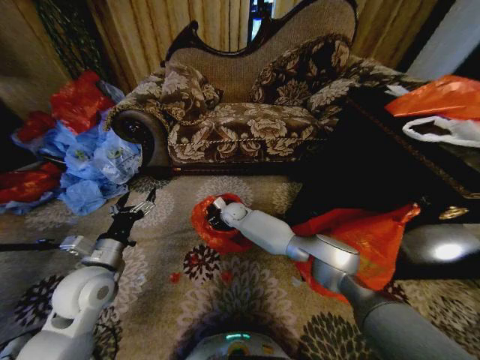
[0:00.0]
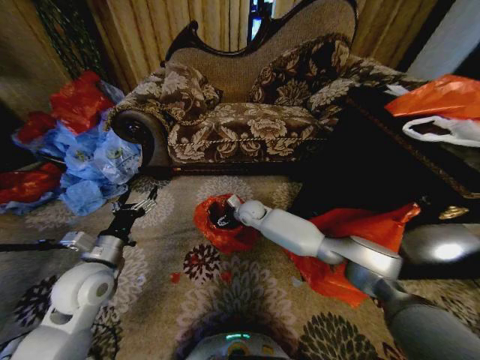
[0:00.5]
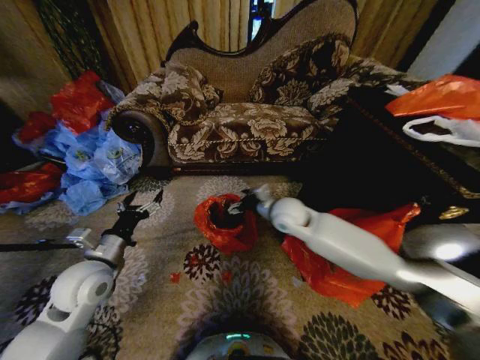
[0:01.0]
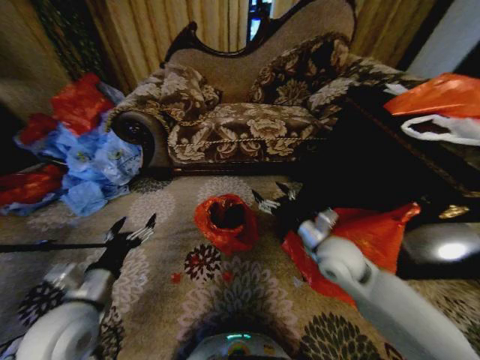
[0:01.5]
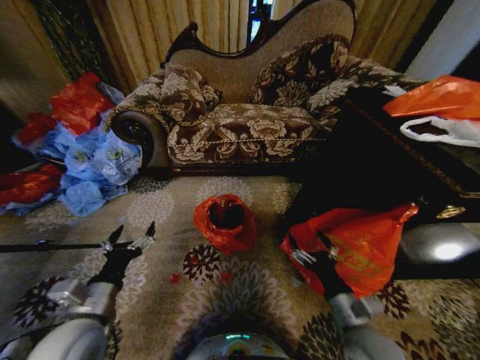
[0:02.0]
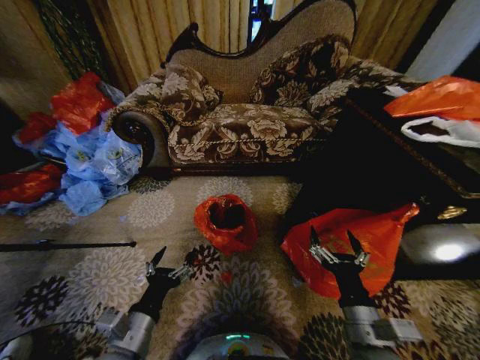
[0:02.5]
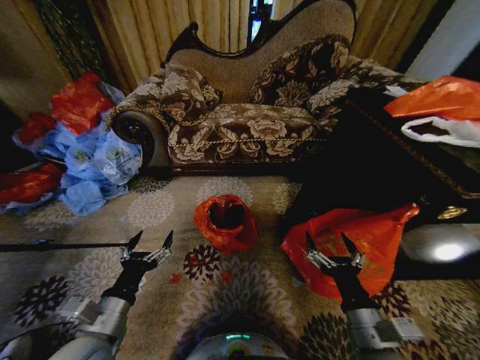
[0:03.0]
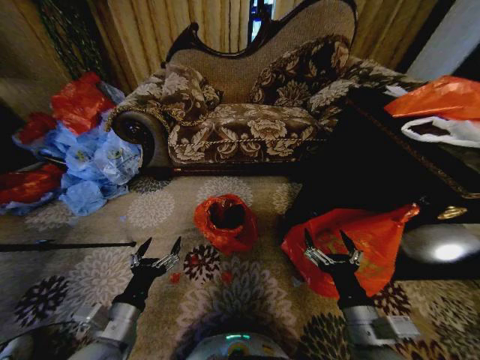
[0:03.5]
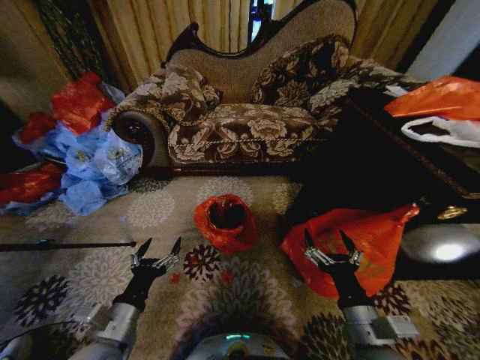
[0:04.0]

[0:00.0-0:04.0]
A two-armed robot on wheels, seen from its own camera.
Task of the whole recording: Place a garbage bag over the trash bin.
0:00.0 to 0:02.0: The left gripper is displaced backward by approximately 10 cm. The right gripper goes about 50 cm backward and to the right.
0:02.0 to 0:04.0: The right gripper moves approximately 5 cm.
